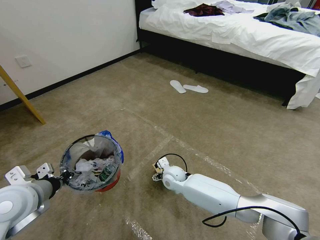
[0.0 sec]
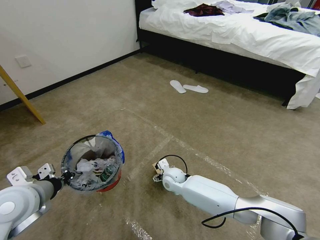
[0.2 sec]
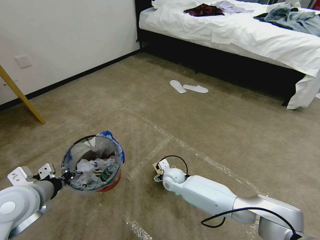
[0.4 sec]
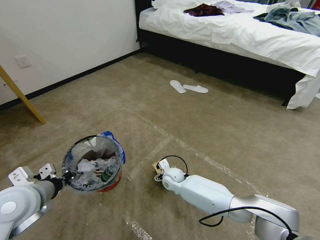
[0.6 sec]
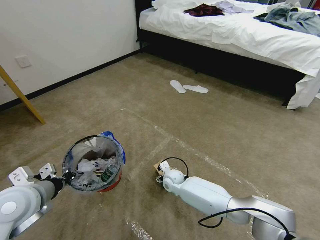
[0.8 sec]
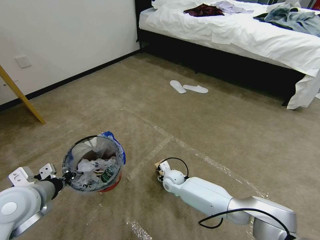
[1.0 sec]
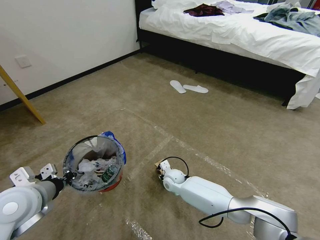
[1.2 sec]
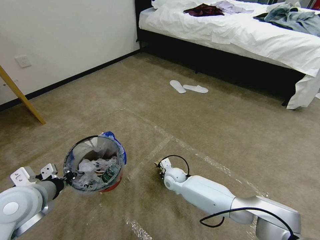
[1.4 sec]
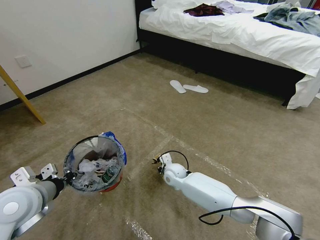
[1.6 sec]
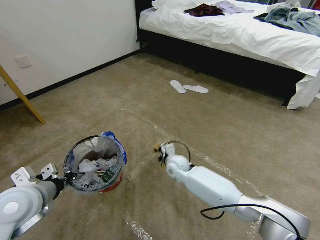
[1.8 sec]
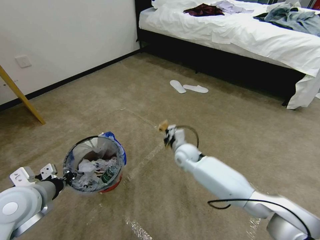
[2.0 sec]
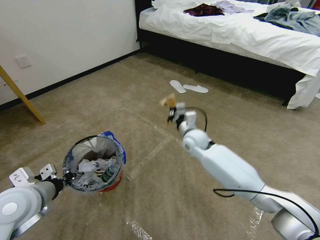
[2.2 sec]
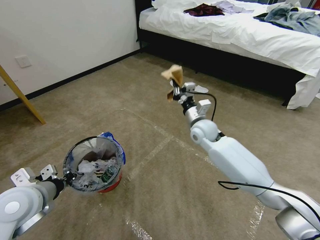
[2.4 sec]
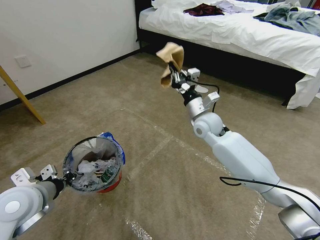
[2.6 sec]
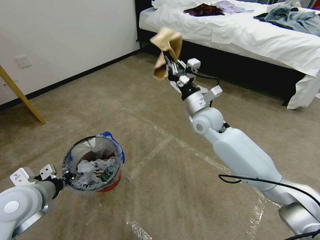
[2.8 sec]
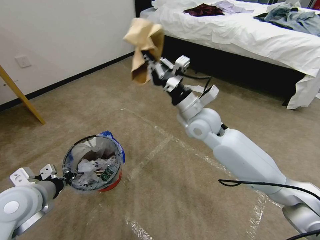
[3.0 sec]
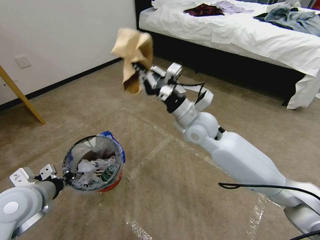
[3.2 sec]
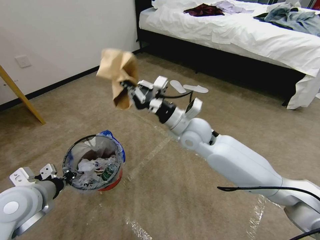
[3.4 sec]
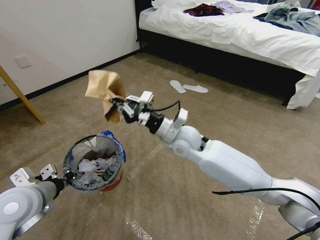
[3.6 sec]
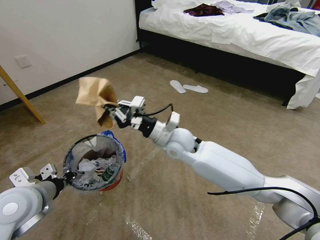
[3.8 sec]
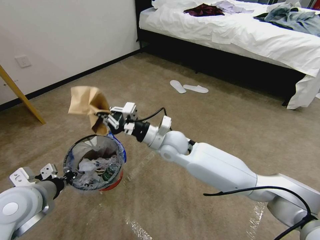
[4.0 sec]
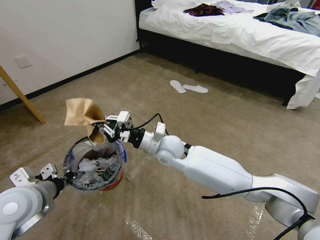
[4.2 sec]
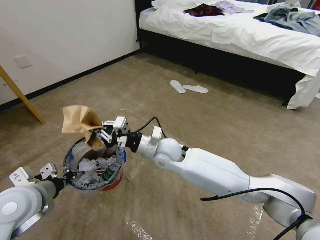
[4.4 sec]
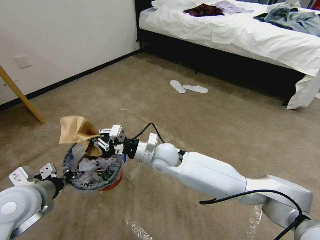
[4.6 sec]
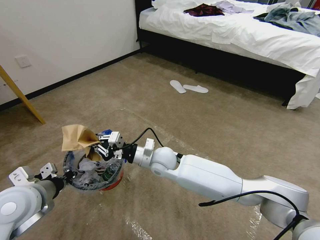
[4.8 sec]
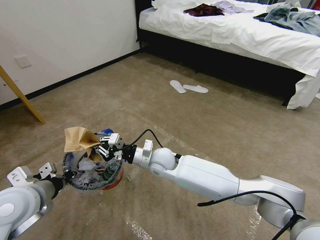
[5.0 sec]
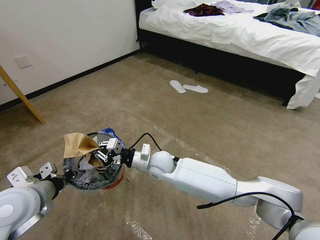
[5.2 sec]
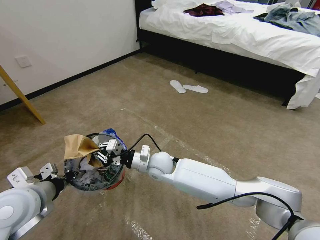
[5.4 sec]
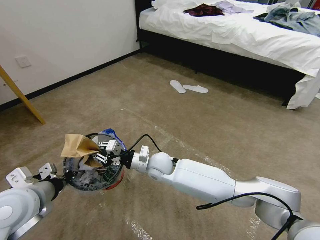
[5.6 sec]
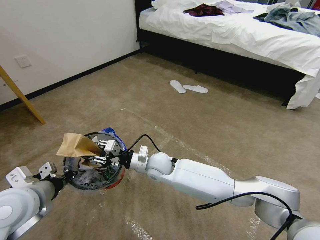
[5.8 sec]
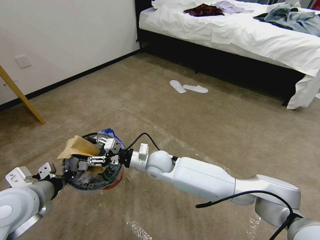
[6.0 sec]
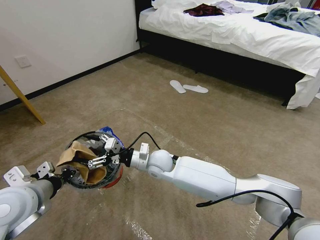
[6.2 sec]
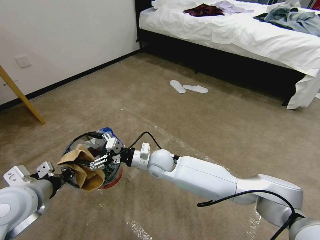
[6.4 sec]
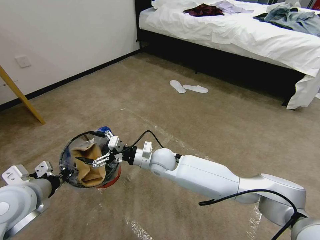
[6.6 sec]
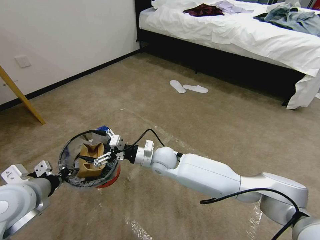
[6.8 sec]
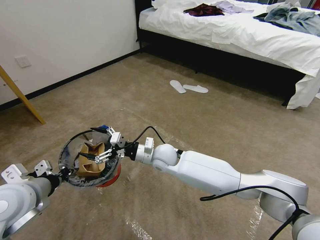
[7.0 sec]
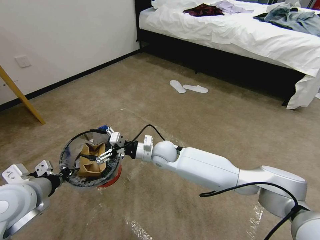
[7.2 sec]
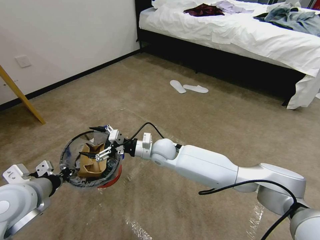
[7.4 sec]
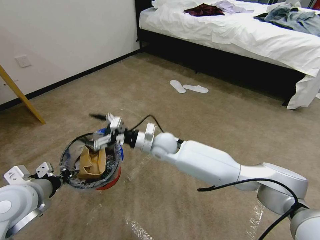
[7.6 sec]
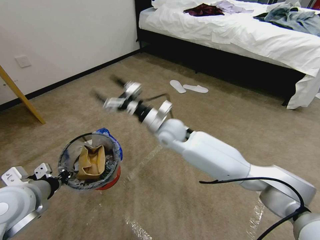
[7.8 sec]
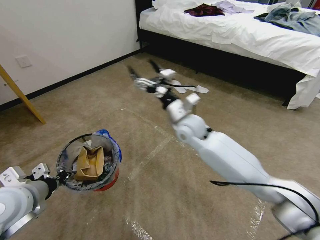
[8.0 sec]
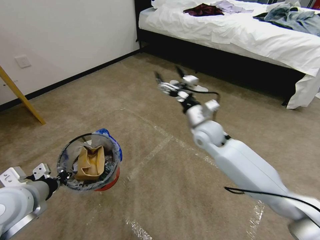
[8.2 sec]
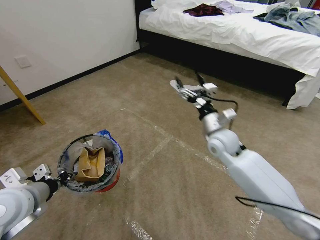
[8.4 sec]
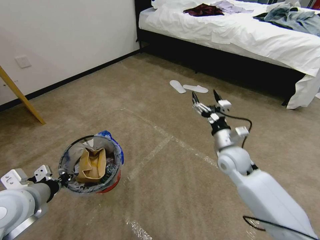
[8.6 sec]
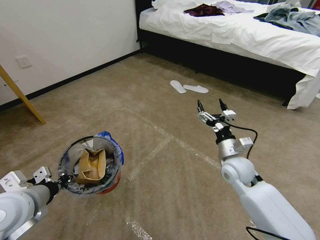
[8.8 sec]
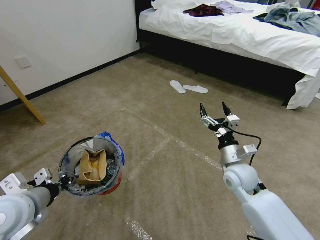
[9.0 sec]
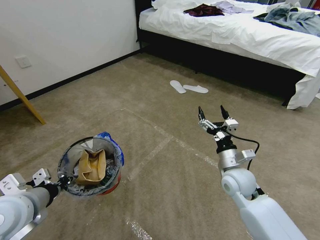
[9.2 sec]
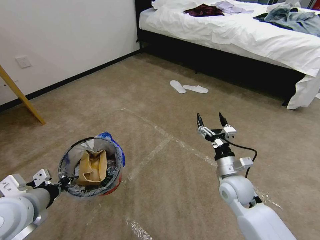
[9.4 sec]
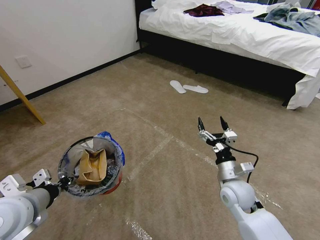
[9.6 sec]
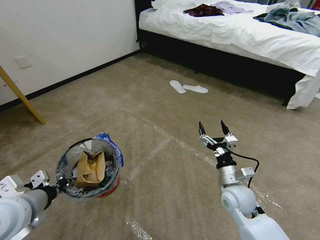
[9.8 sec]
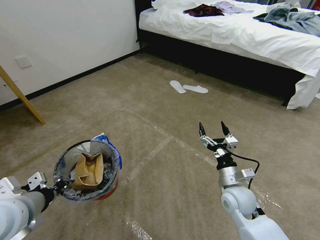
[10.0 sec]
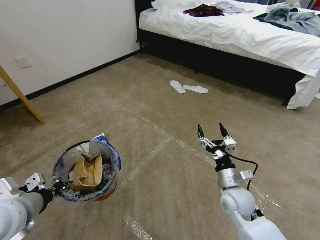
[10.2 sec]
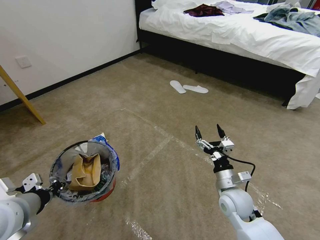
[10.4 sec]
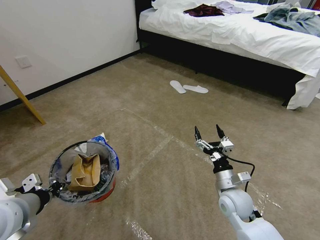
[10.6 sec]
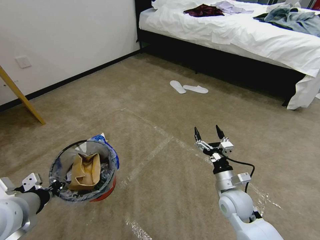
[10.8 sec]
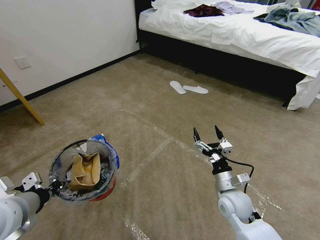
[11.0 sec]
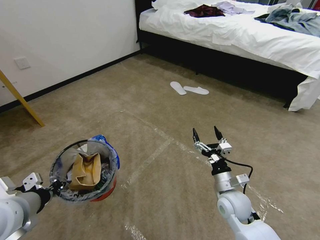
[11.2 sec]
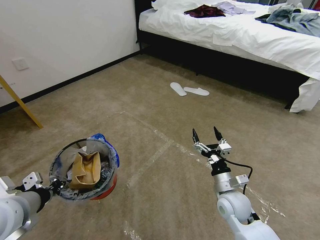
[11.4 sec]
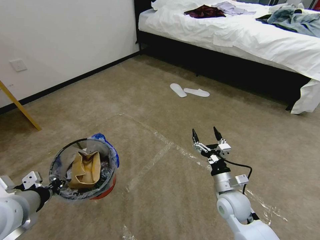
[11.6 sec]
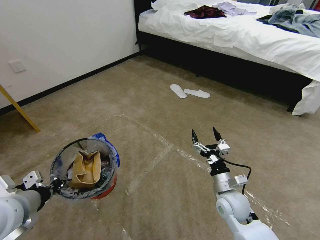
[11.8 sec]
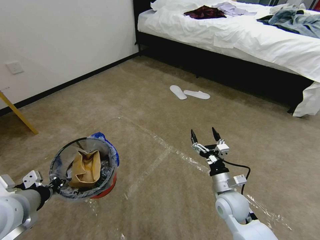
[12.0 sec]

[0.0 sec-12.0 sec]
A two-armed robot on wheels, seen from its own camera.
Task of the whole recording: Pick up the trash bin and place the garbage on the floor into it.
0.0 sec to 1.6 sec: The right gripper closes up.
1.6 sec to 3.0 sec: The right gripper moves upward, about 30 cm.
3.0 sec to 4.4 sec: The right gripper is displaced to the left and downward by some 15 cm.
4.4 sec to 6.0 sec: The right gripper shifts approximately 5 cm downward, and opens its fingers.
6.0 sec to 7.6 sec: The right gripper travels upward by about 5 cm, and opens.
7.6 sec to 9.0 sec: The right gripper heads to the right and backward, covering approximately 25 cm.
9.0 sec to 10.4 sec: The right gripper shifts about 10 cm downward and backward.
10.4 sec to 12.0 sec: The grippers move only a little.

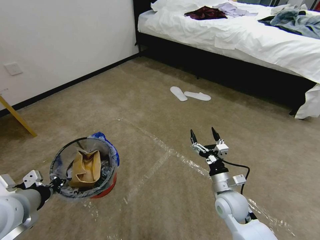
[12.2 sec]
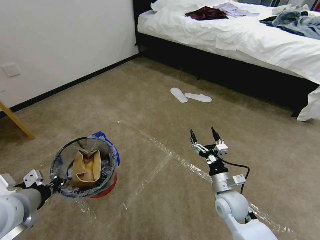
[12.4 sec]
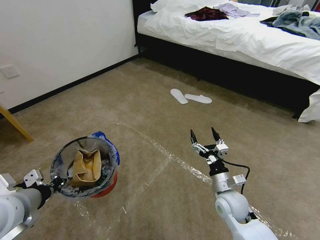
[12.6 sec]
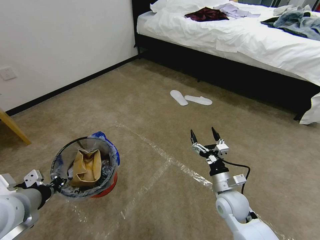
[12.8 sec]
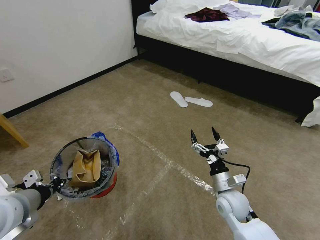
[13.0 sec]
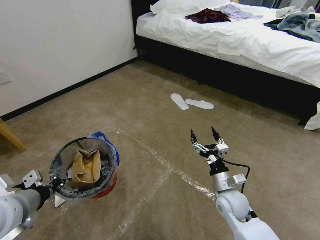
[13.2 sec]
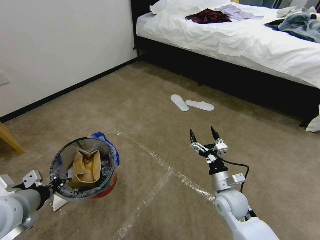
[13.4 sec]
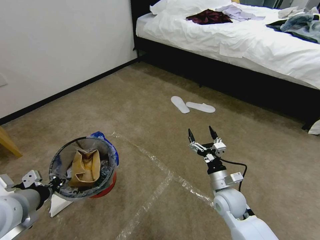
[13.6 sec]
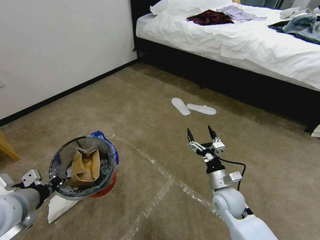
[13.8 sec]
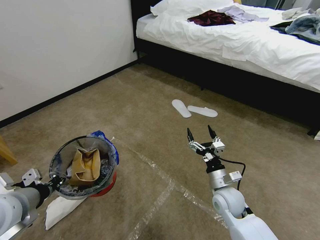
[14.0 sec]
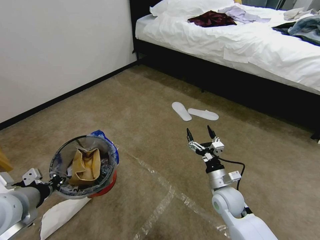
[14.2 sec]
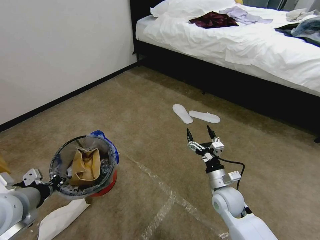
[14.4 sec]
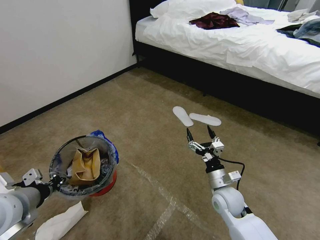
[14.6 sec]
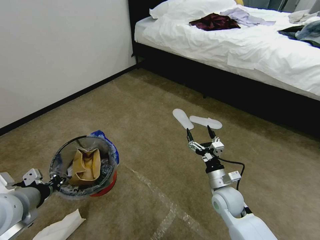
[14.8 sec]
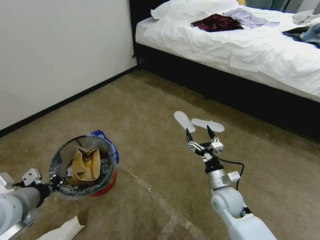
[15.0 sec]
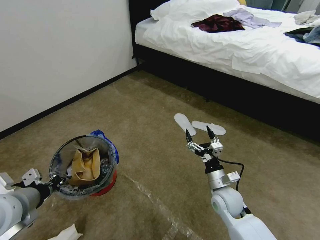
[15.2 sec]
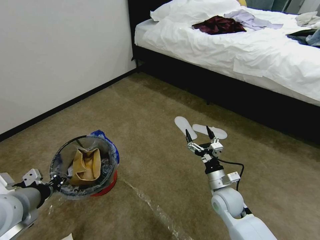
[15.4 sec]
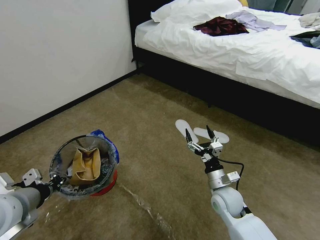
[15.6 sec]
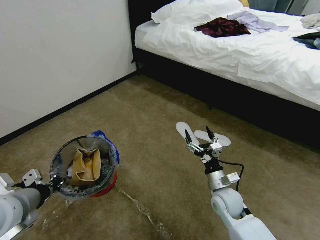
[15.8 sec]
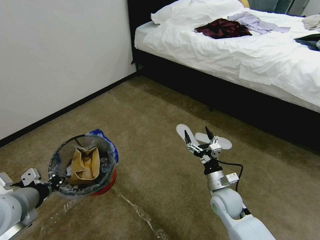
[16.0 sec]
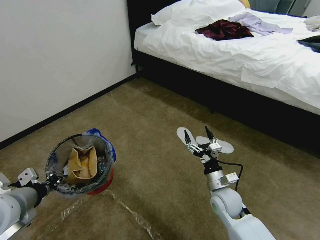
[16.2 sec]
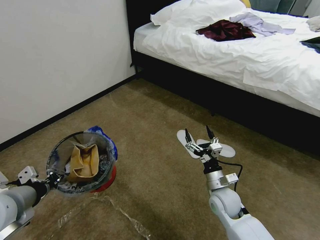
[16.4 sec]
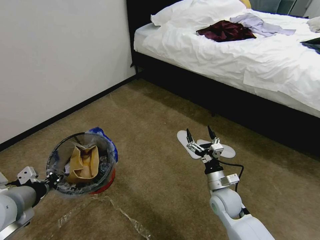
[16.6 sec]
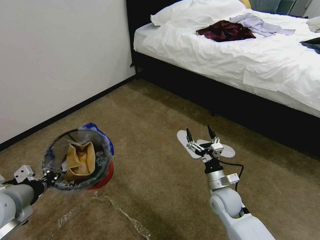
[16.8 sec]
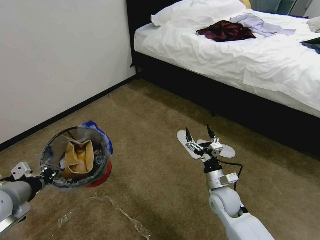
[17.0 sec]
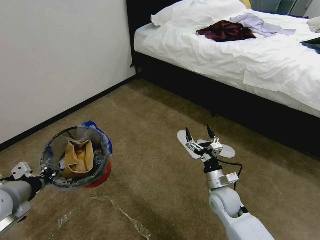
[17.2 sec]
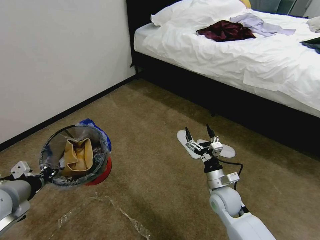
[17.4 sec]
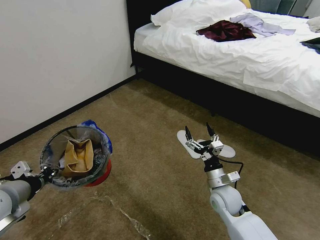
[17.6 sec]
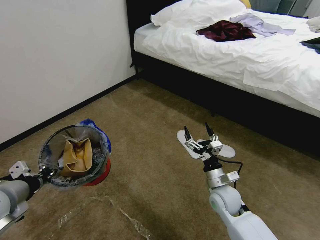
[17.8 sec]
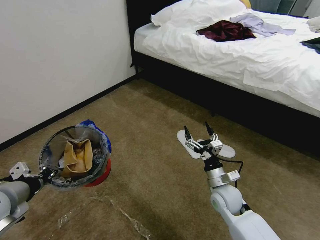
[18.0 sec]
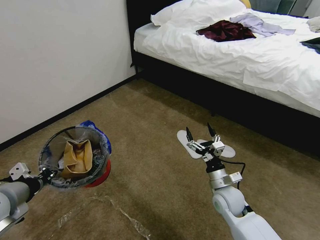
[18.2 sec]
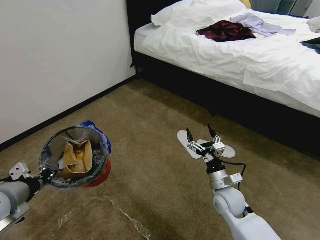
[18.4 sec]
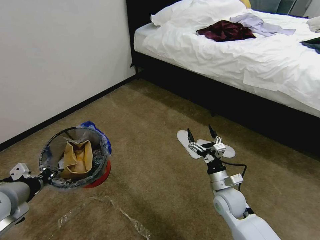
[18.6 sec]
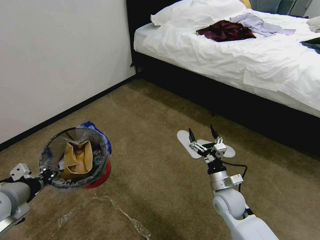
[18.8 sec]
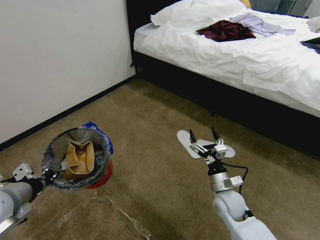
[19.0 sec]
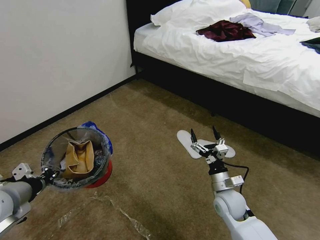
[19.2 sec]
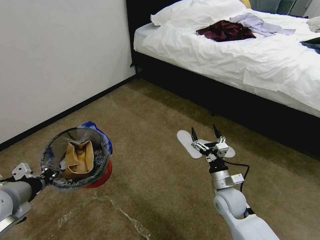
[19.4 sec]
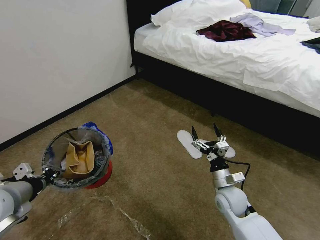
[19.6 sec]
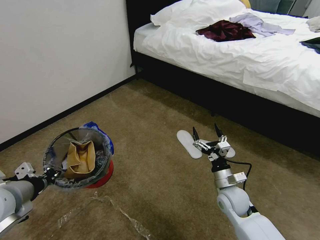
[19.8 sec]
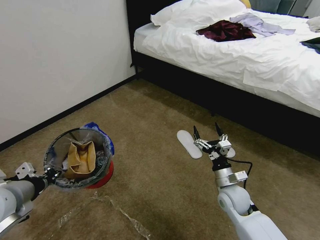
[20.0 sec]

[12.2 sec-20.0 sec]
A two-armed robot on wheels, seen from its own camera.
Task of the whole recording: Pick up the trash bin and place the garbage on the floor into it.
16.8 sec to 18.4 sec: Neither gripper changes place.
18.4 sec to 20.0 sec: There are only small adjustments of the grippers.
